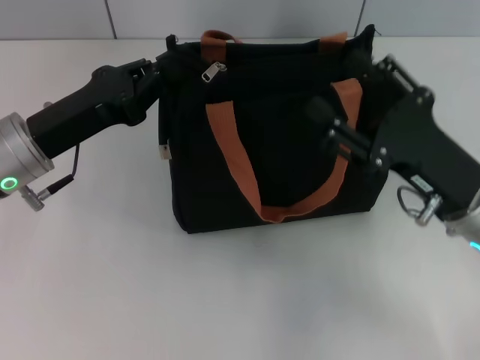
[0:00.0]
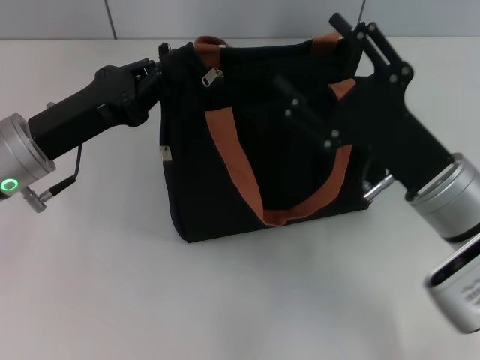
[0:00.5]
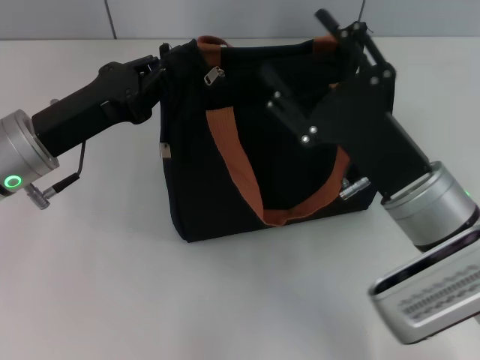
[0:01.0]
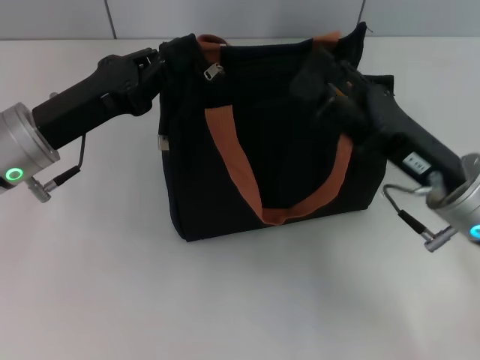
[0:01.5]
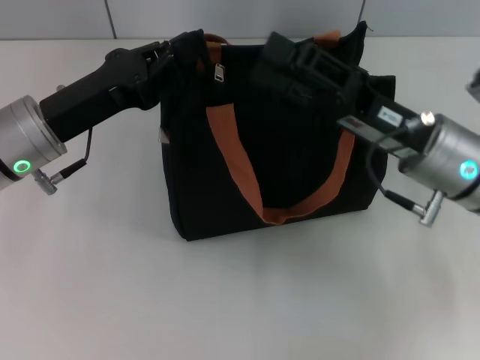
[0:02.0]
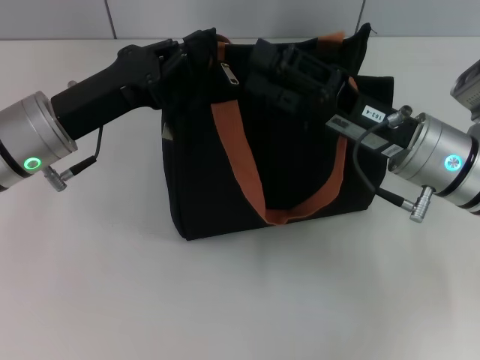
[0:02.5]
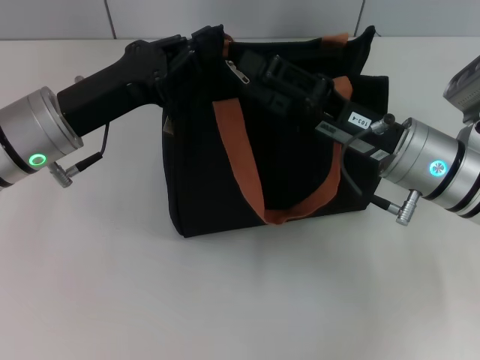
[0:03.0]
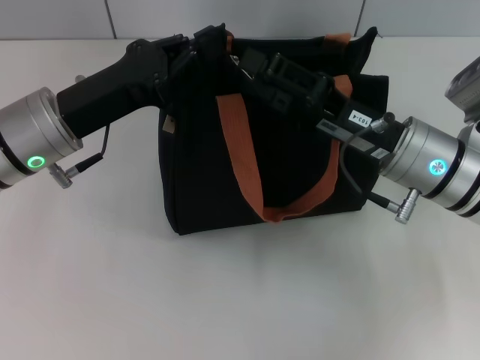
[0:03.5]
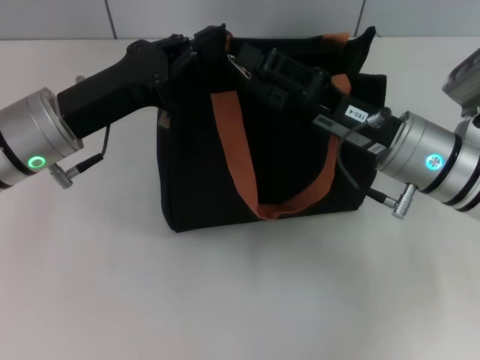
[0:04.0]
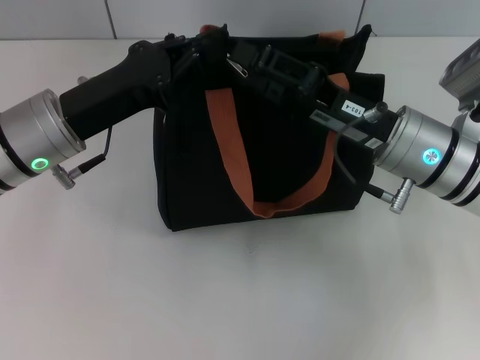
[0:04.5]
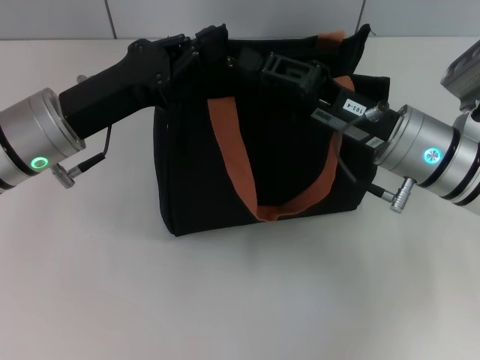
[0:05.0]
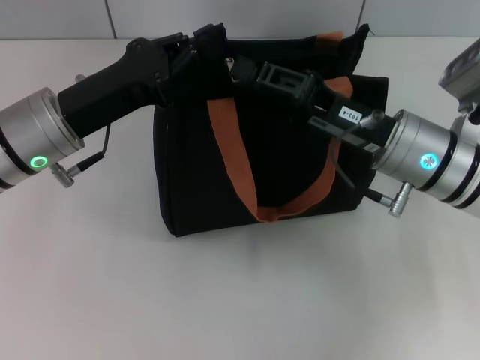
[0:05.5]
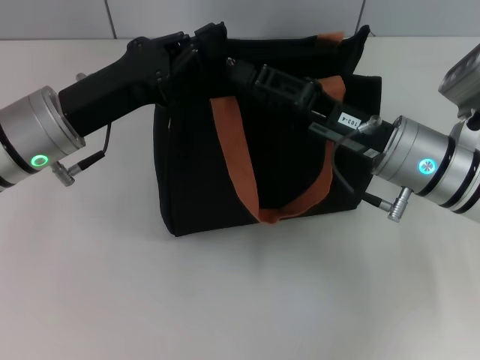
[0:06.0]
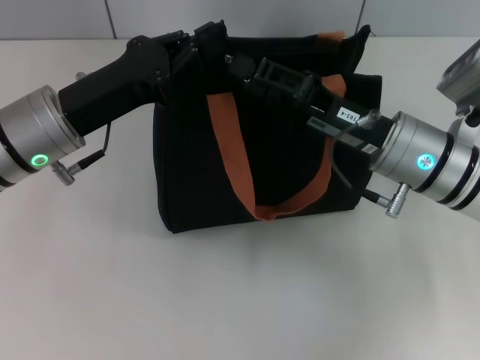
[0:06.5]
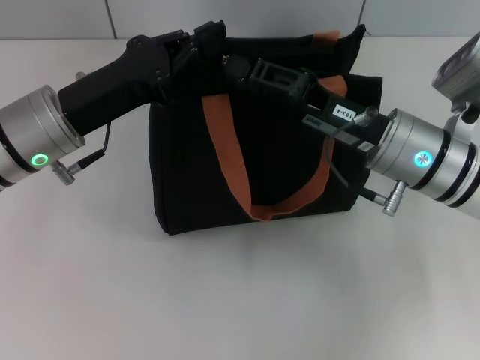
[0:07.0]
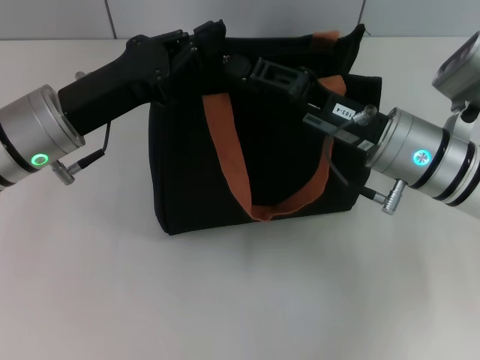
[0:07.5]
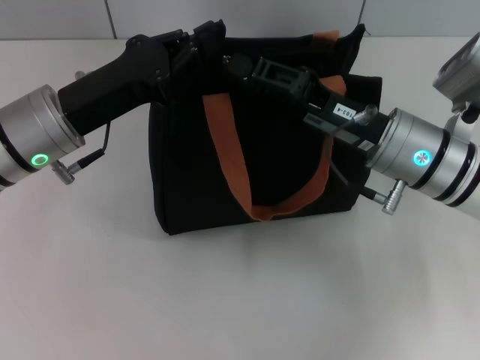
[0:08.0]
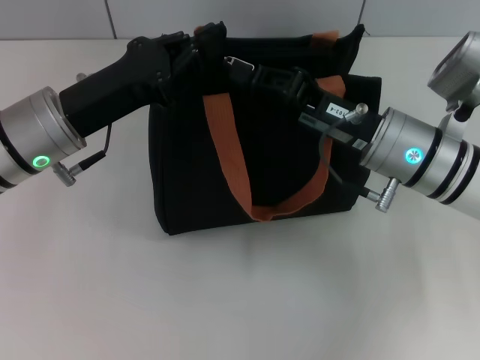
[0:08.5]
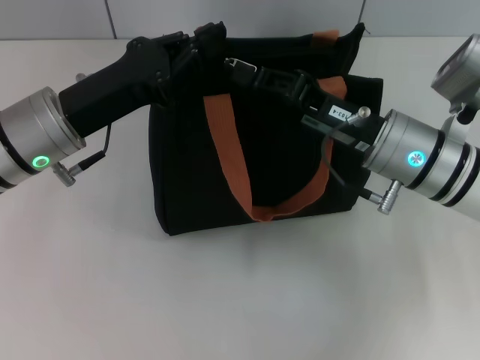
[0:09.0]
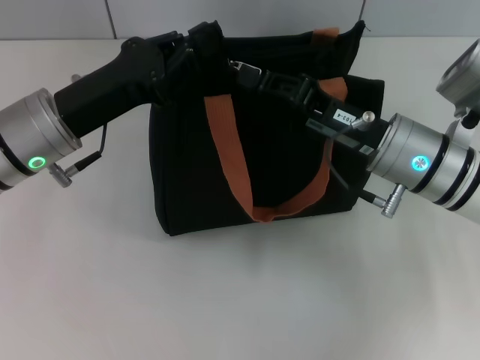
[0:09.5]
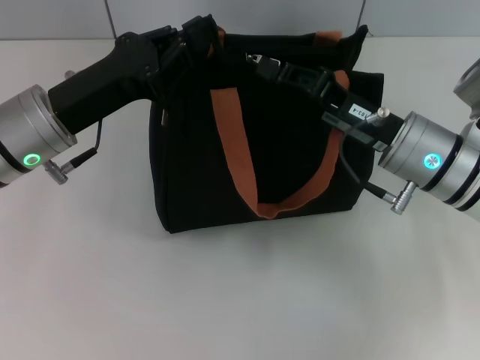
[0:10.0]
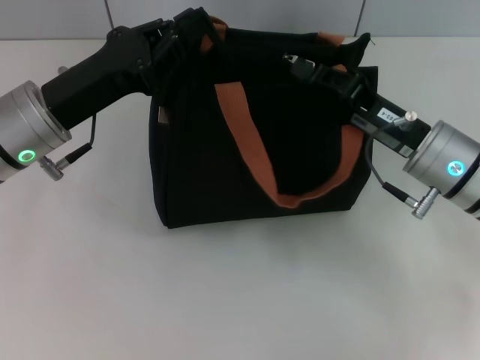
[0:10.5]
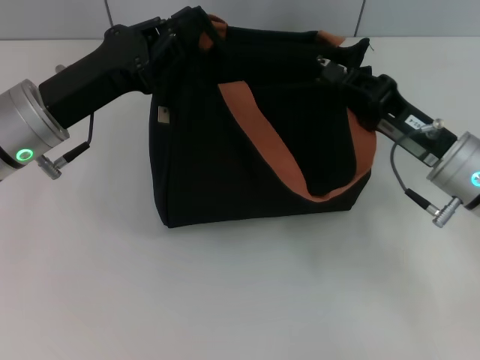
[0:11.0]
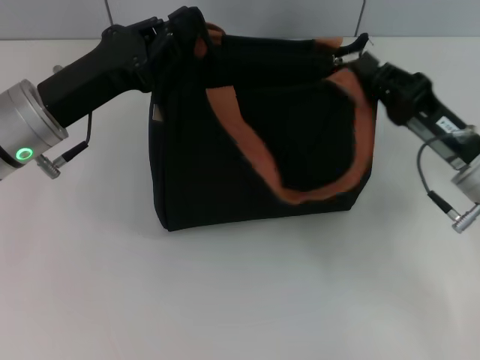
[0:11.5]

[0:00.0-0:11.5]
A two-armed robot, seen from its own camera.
Step, 0:00.0 to 0:11.5: Pull up the zipper with your right hand.
0:00.0 to 0:02.0: The right gripper changes place by some 5 cm.
0:02.0 to 0:04.0: There are only small adjustments of the grippers.
0:04.0 to 0:06.0: The right gripper closes.
0:06.0 to 0:07.5: Both grippers stay put.
0:07.5 to 0:09.5: The right gripper closes up.
0:09.5 to 0:11.5: The right gripper goes approximately 10 cm to the right.

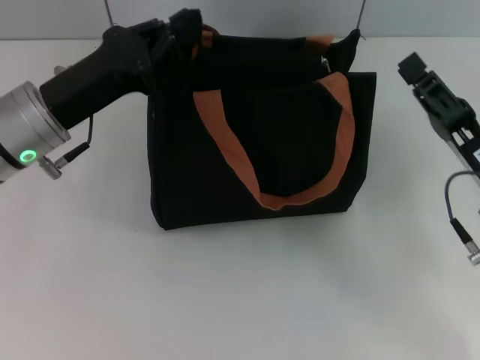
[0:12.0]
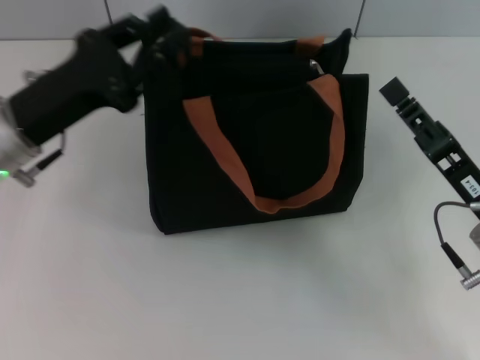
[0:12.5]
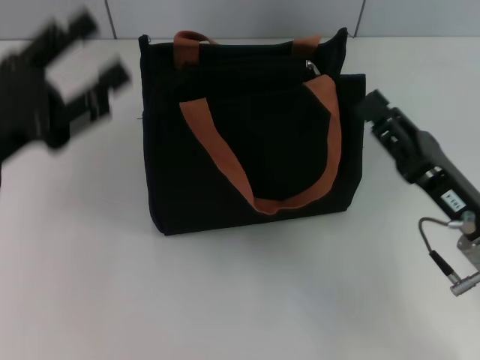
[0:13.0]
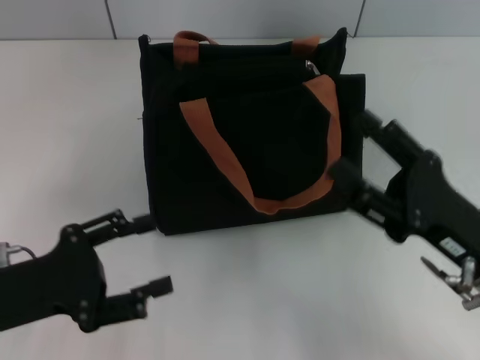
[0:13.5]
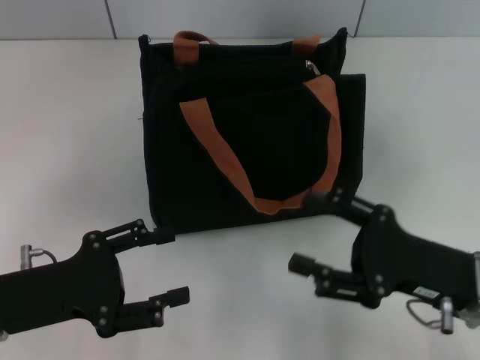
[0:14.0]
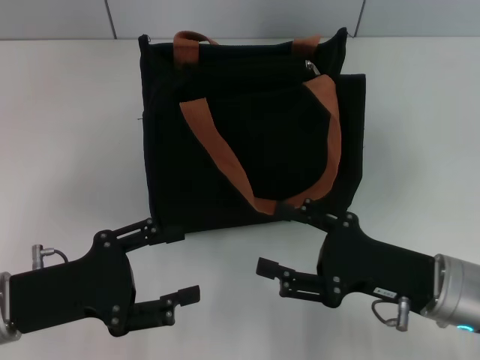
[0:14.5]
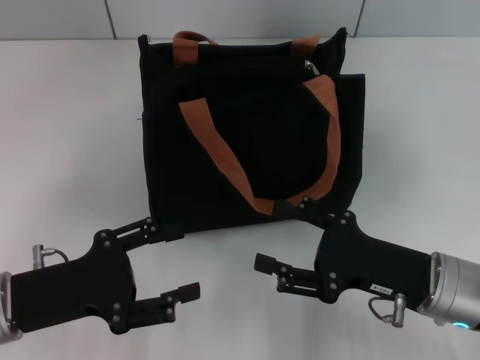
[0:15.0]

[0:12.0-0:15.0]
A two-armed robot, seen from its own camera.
Step, 0:12.0 to 0:12.5: Grab the zipper with your left hand.
0:12.0 to 0:13.5: The left gripper heads backward, to the left and downward, covering about 15 cm, and opens its fingers. Meanwhile the right gripper opens up.

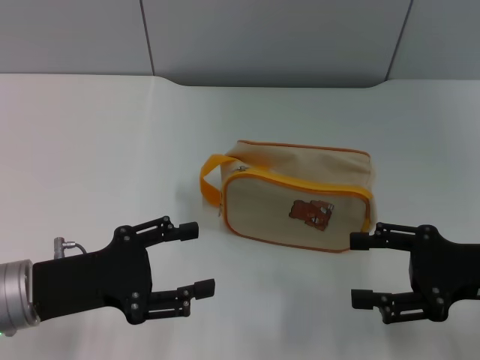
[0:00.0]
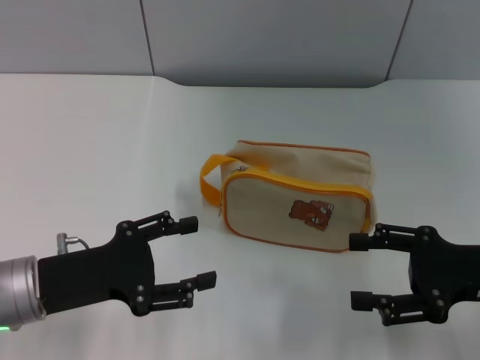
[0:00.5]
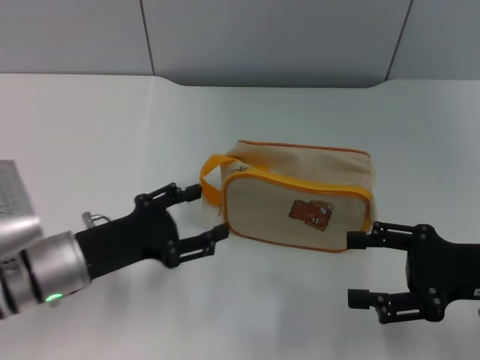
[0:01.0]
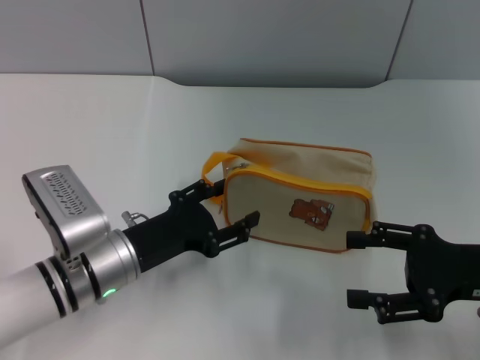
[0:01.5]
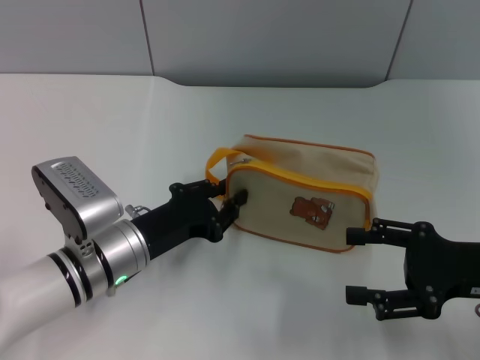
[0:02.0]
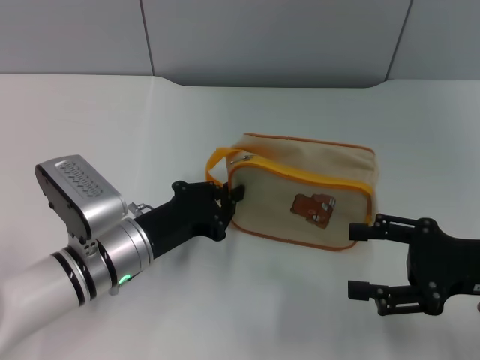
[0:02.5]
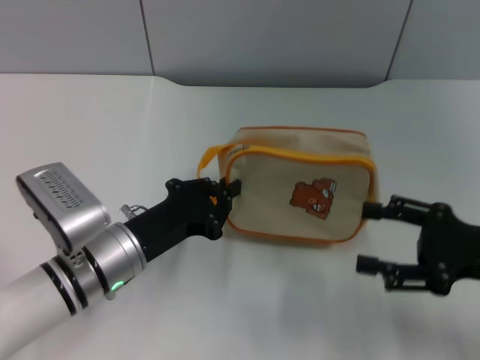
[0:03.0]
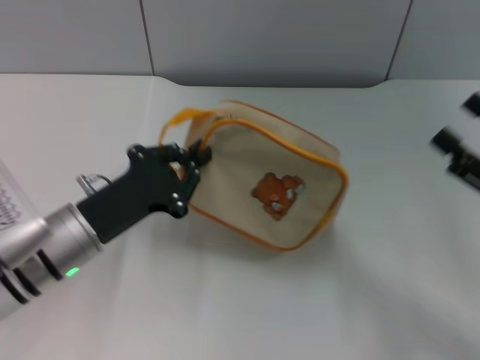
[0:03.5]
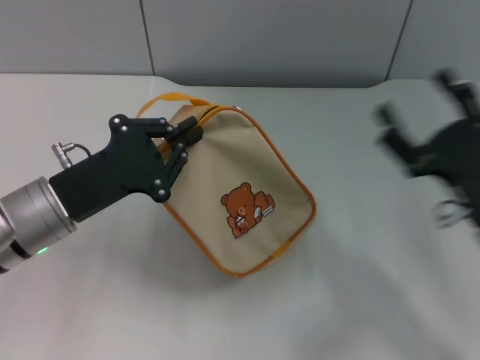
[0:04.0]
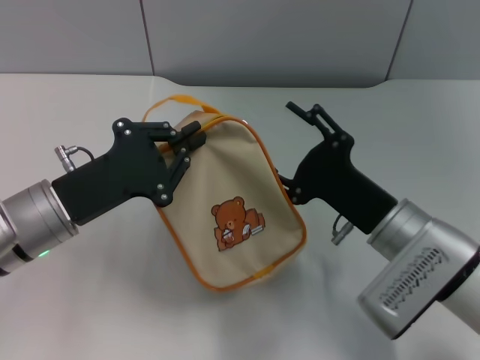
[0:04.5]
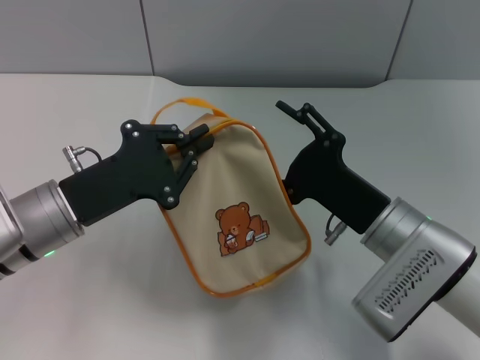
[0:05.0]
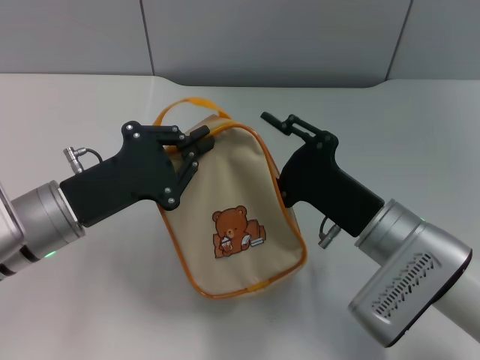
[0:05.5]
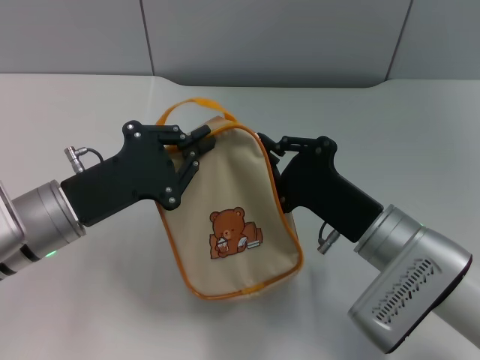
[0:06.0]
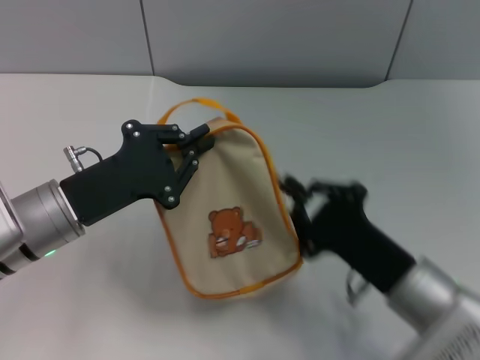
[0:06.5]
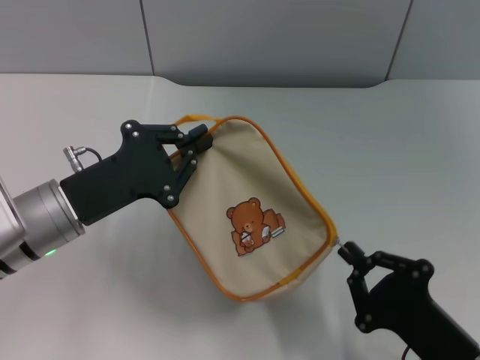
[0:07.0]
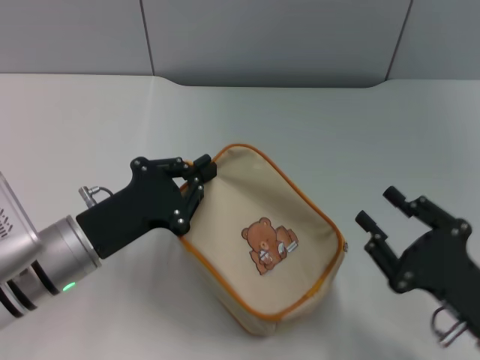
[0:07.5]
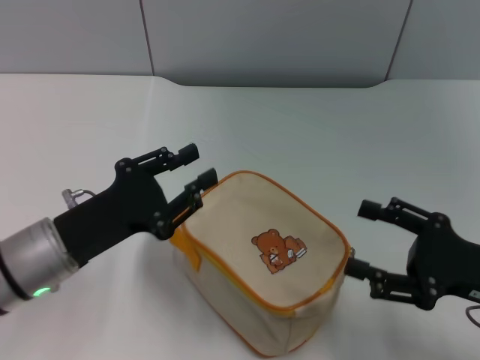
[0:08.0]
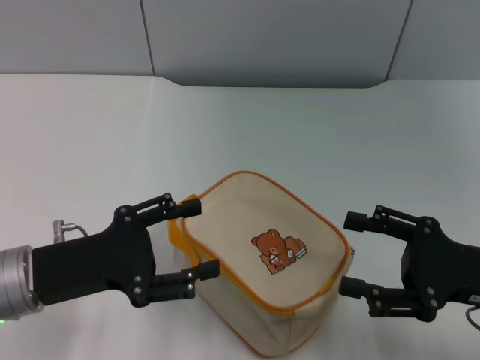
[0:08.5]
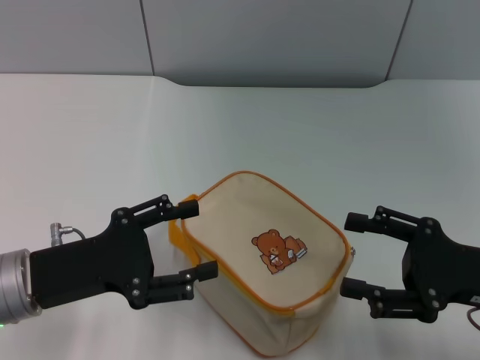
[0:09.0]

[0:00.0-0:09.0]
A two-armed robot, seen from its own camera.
Step, 0:00.0 to 0:03.5: Pick up the bag with left gripper.
Step, 0:04.0 to 0:07.0: Unzip the zipper of bag with right gripper.
0:00.0 to 0:02.0: The left gripper is displaced to the right and forward by approximately 10 cm, and closes.
0:02.0 to 0:04.5: The left gripper goes roughly 10 cm upward and to the left, and closes its fingers; the right gripper is displaced to the left by roughly 10 cm.
0:04.5 to 0:07.0: The right gripper heads backward, covering approximately 15 cm, and closes.
0:07.0 to 0:09.0: The left gripper is displaced backward by about 5 cm, and opens up. The right gripper goes about 15 cm forward, upward and to the right, and opens.
